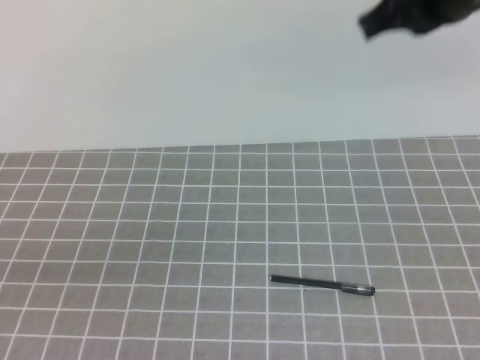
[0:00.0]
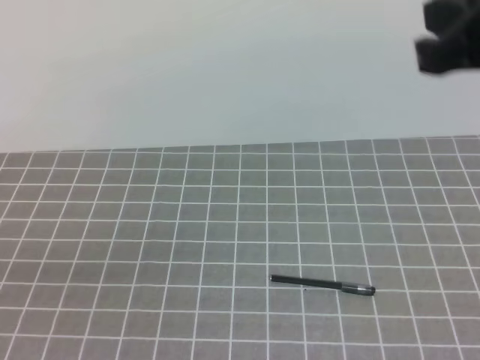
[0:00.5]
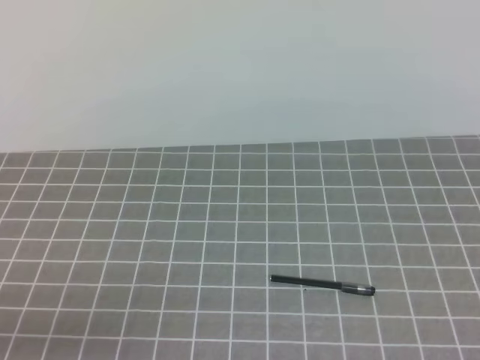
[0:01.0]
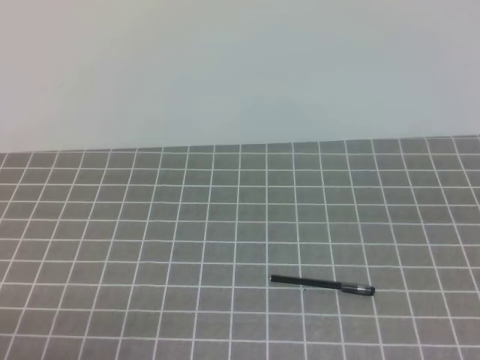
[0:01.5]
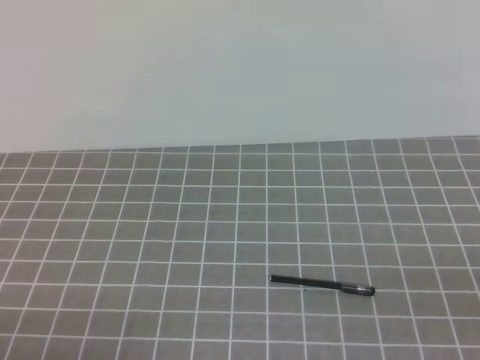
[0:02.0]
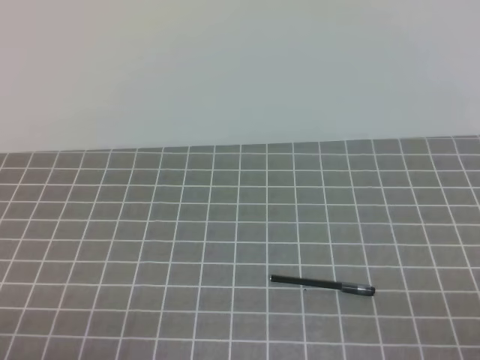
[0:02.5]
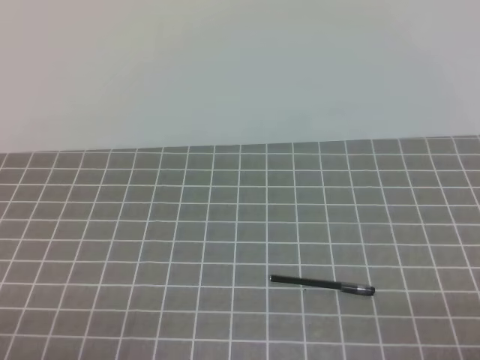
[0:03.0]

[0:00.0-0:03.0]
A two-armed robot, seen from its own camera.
Task of the whole recording: on the grey tablecloth, hold the pen cap in one hand and the pen in the other, then cover the pen cap.
Step, 0:00.0 to 0:03.0: Put the cap on the pen.
0:00.0 to 0:01.5: The left gripper heads downward, covering about 10 cm; the right gripper heads backward and to the right, covering about 25 cm.
